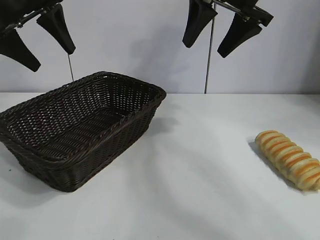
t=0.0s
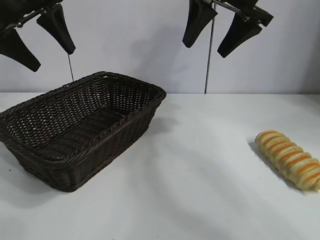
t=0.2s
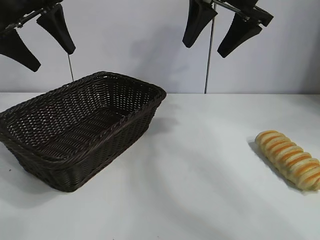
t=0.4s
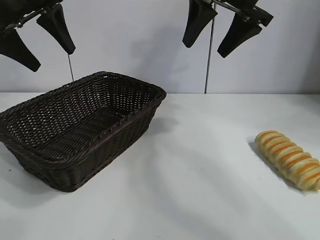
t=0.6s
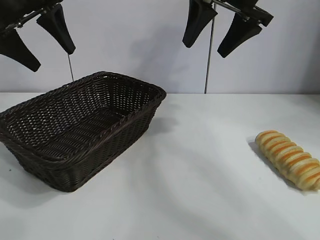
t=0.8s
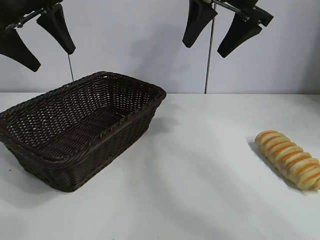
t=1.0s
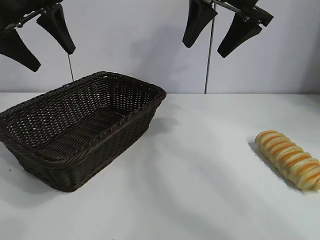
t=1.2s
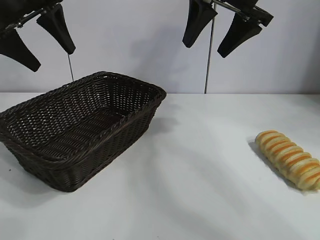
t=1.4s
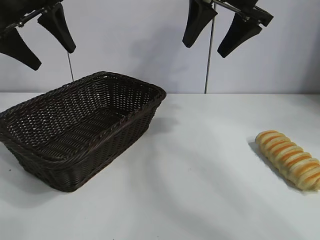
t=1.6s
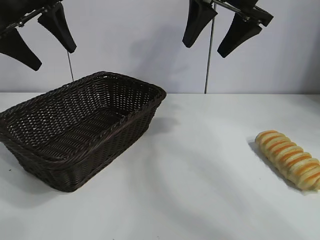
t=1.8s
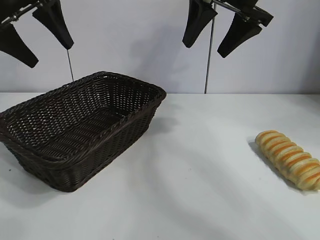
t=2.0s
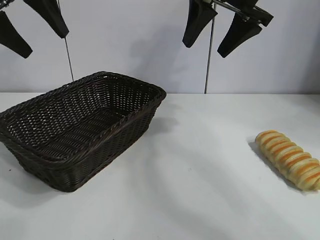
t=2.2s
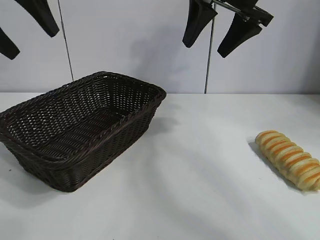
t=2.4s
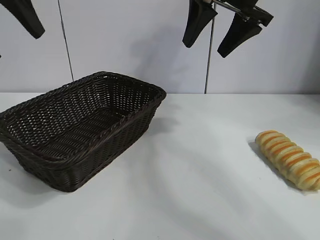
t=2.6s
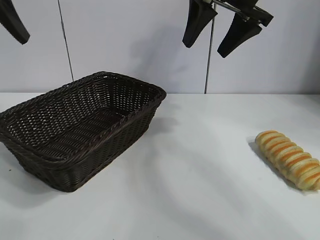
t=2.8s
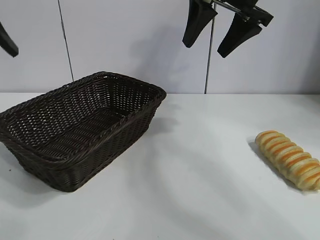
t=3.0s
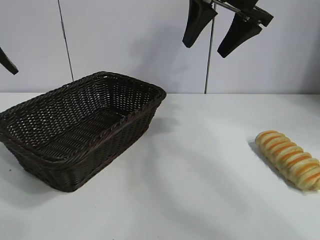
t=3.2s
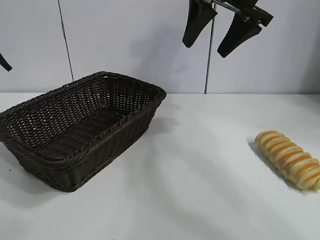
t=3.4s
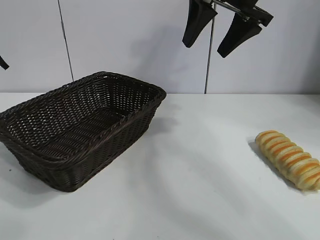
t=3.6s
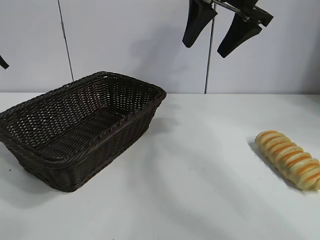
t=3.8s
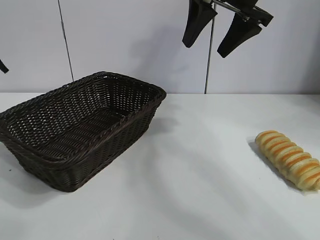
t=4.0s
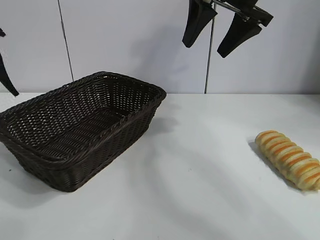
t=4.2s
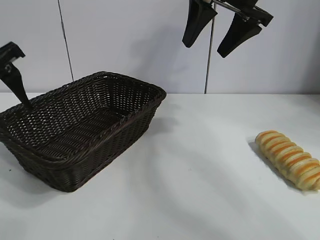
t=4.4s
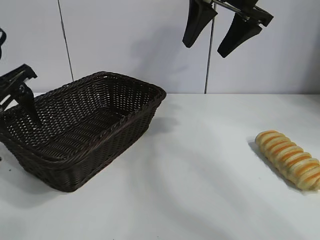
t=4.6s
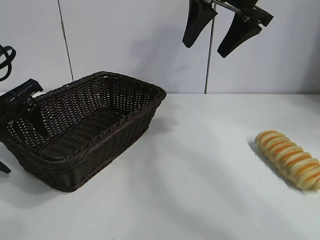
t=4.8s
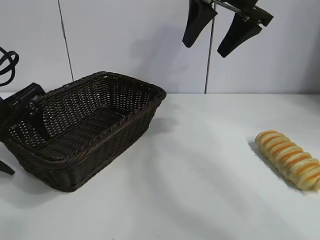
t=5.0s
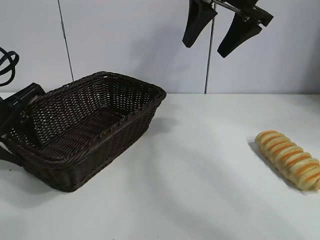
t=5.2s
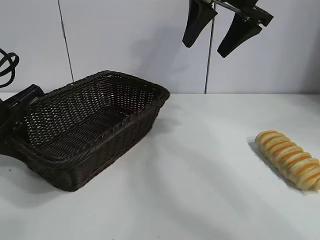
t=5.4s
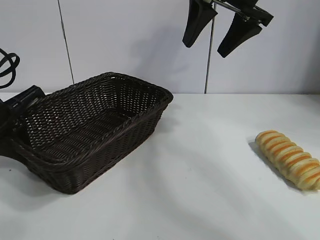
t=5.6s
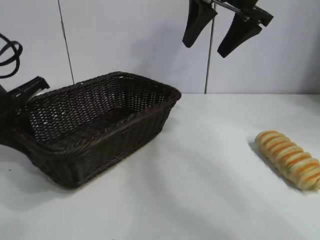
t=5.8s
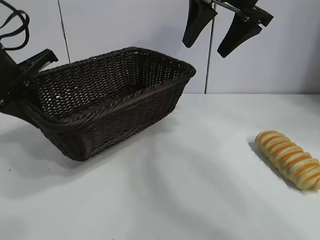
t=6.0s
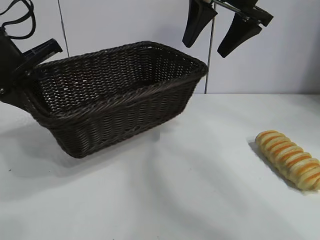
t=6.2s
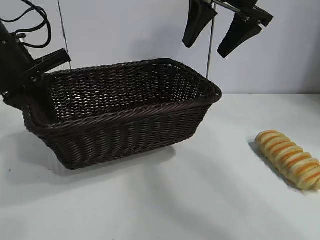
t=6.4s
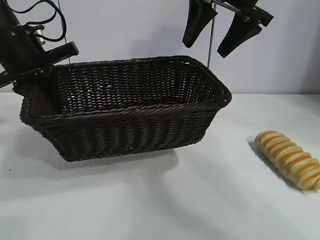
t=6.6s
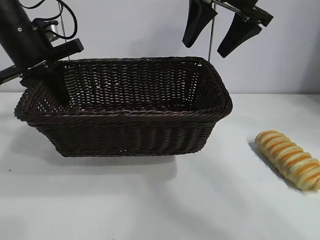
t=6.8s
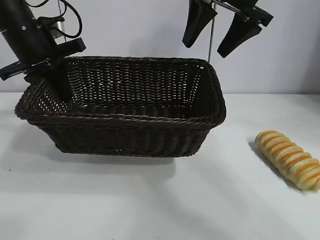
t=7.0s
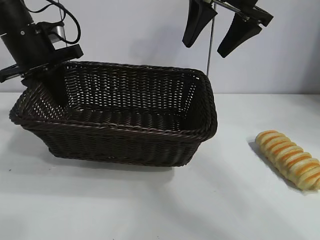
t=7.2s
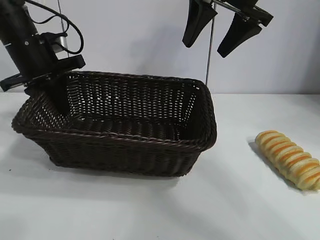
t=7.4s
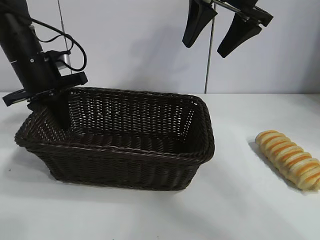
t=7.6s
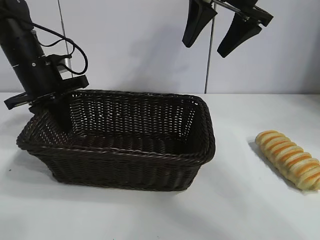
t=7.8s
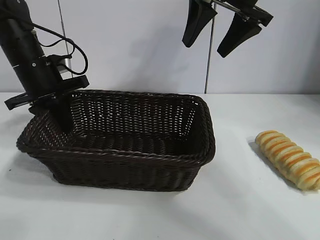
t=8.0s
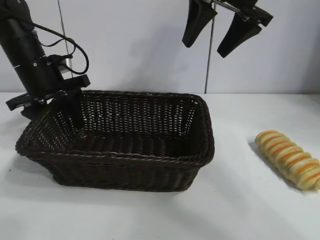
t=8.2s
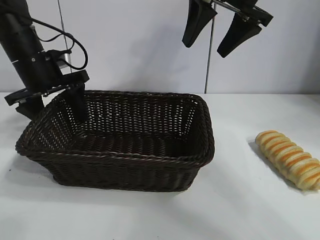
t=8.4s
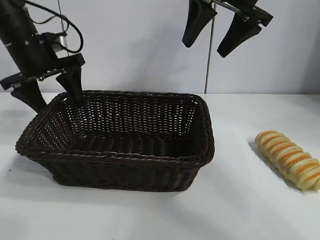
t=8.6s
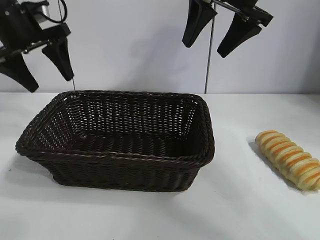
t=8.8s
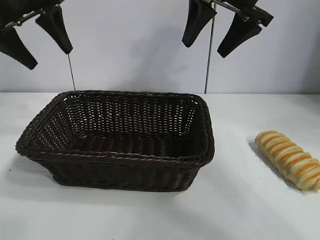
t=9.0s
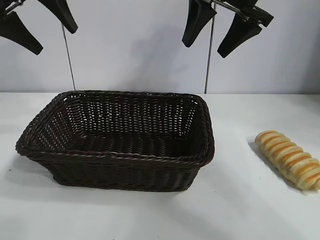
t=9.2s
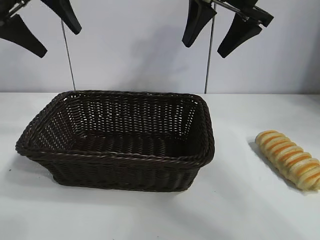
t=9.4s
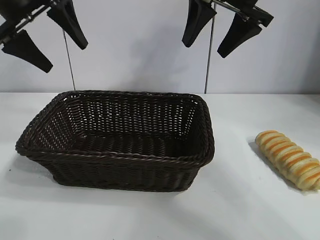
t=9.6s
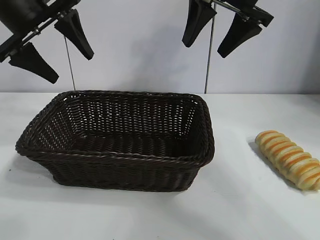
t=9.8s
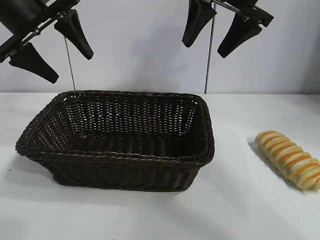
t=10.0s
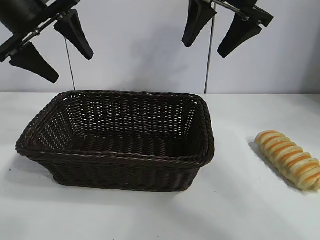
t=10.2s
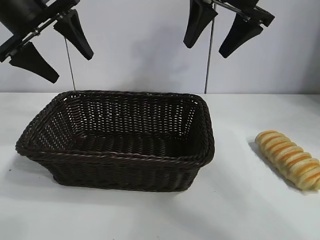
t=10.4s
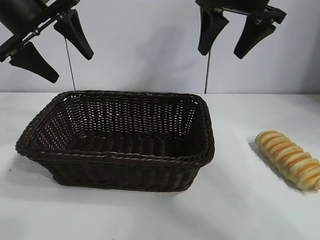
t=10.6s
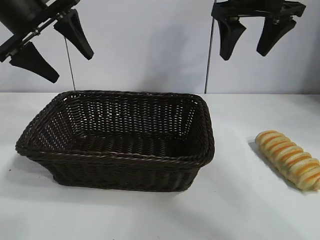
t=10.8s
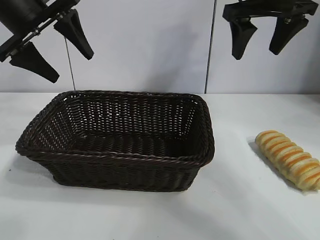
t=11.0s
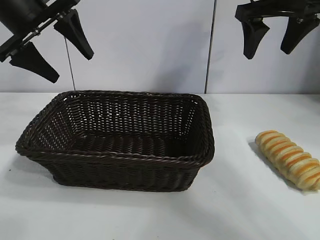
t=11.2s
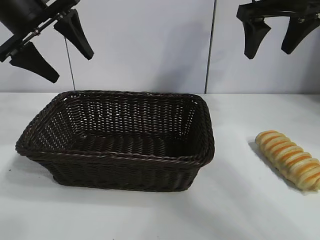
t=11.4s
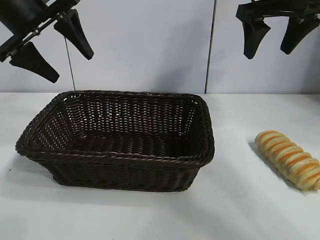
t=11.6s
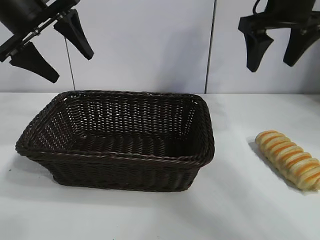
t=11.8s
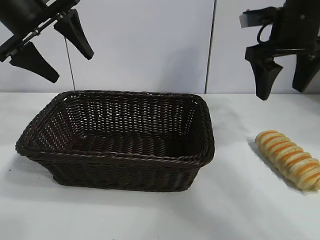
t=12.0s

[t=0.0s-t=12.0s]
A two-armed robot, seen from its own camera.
Task of the whole recording: pick up the long bread and put it into the basket.
Step, t=1.6s to t=5.4s: Grasp the basket with the left gripper.
Step, t=5.6s to t=8.2s: Place the basket in the center of the table with the left gripper.

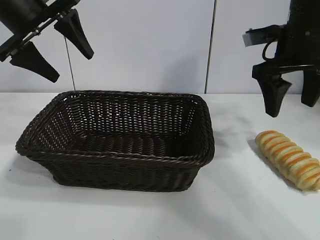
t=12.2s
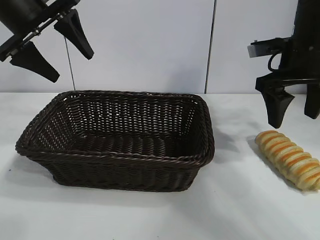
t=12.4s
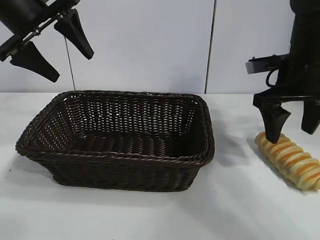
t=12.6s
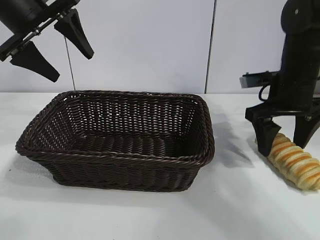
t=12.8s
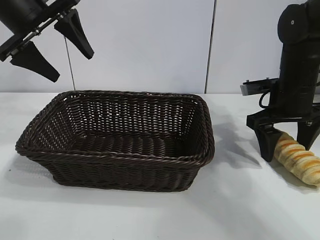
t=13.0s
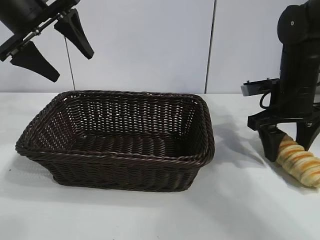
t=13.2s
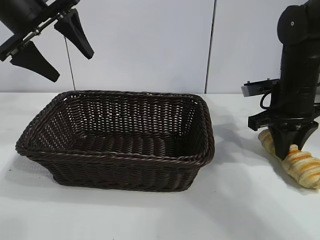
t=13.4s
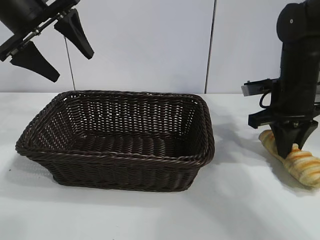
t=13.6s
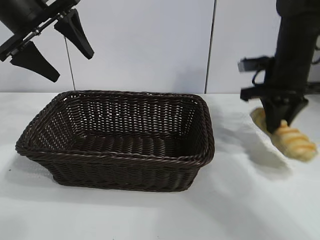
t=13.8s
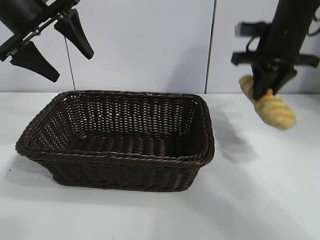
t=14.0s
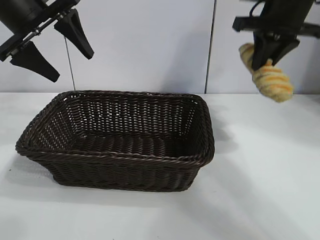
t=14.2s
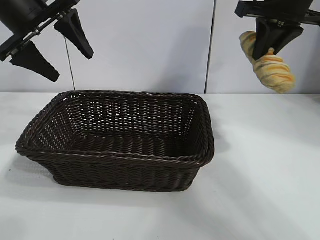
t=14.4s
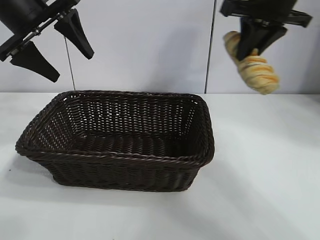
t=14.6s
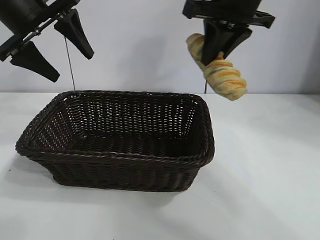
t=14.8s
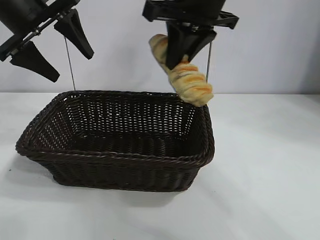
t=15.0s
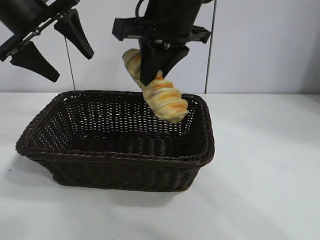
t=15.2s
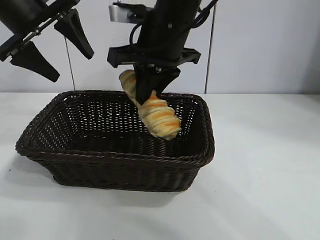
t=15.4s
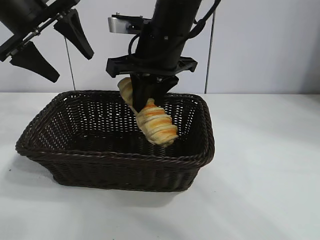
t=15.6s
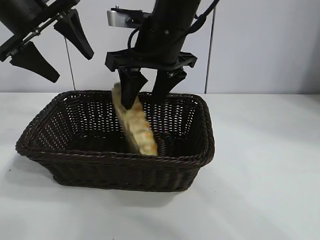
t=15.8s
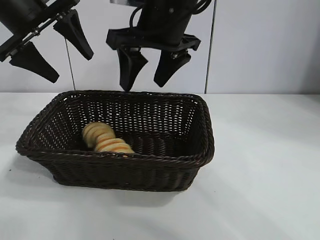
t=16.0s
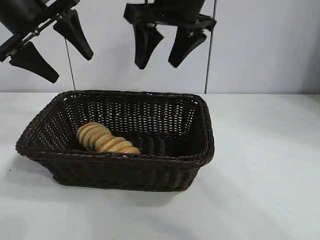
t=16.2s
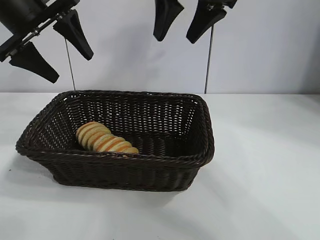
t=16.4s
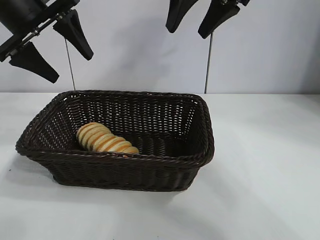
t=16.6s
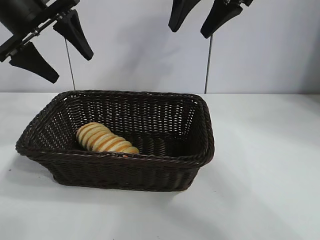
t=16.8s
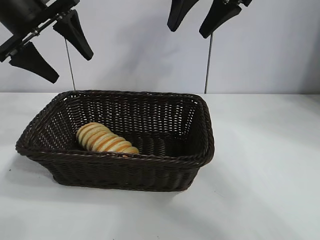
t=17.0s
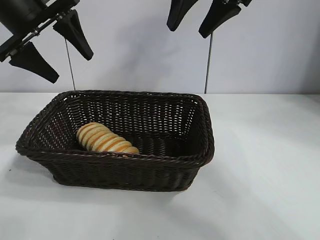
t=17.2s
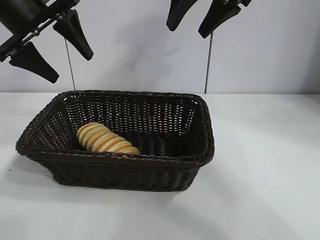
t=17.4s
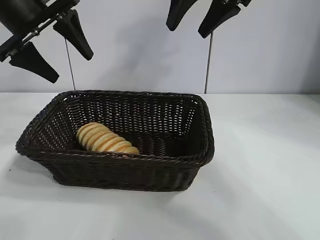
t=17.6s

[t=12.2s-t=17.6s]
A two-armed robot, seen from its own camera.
Task of the whole recording: pick up the long bread and put it into the basket.
Step, t=13.6s to t=16.0s: Place the long bread in the basket with right gripper.
